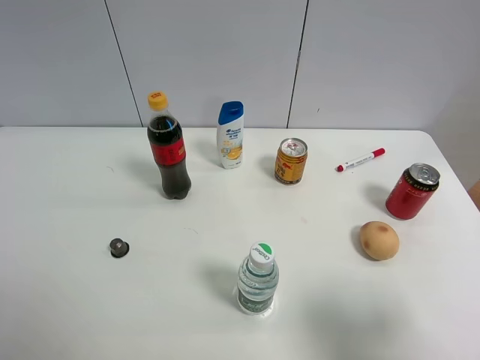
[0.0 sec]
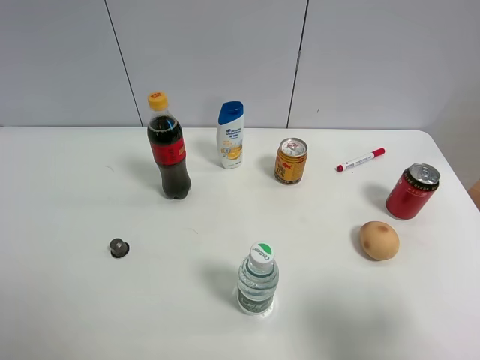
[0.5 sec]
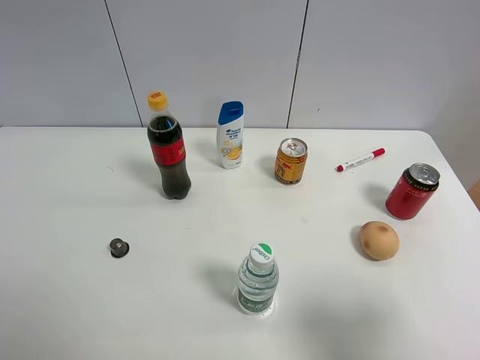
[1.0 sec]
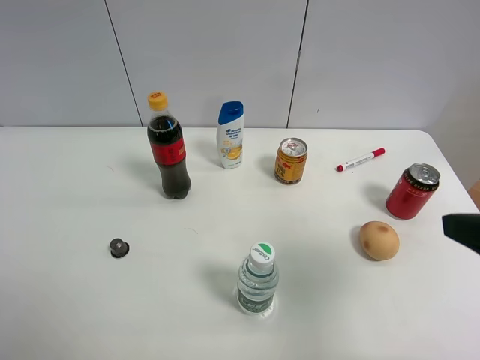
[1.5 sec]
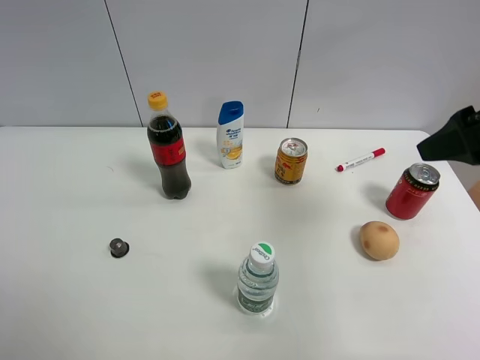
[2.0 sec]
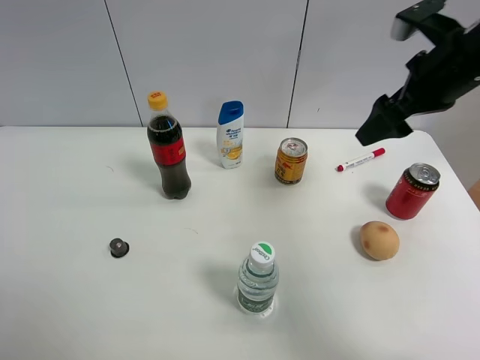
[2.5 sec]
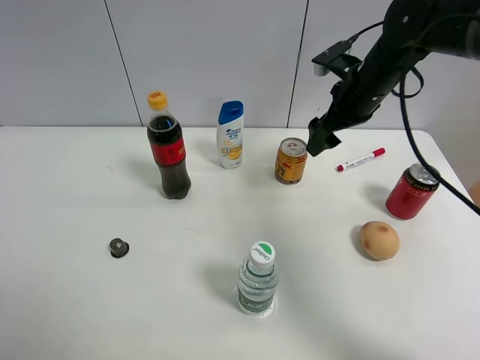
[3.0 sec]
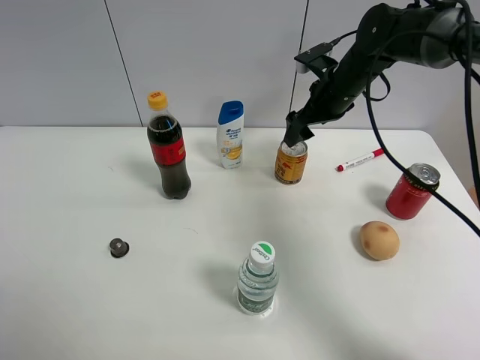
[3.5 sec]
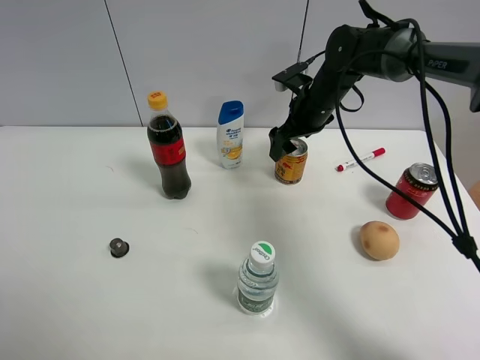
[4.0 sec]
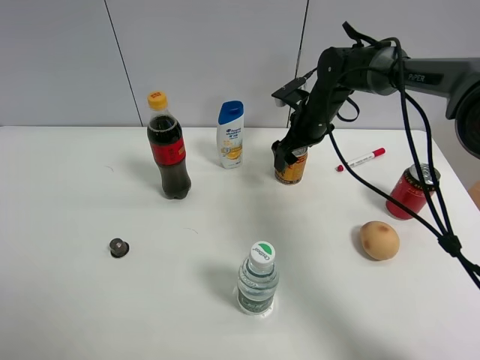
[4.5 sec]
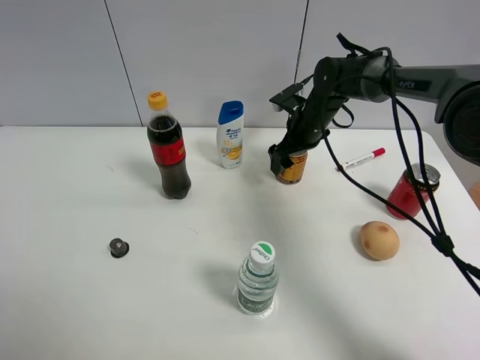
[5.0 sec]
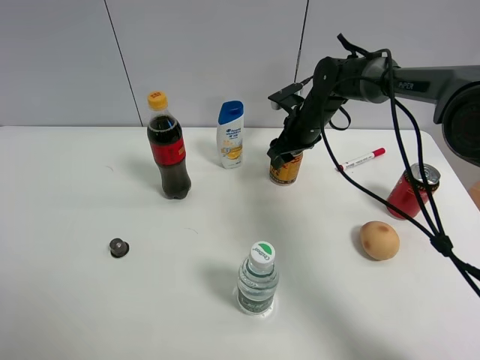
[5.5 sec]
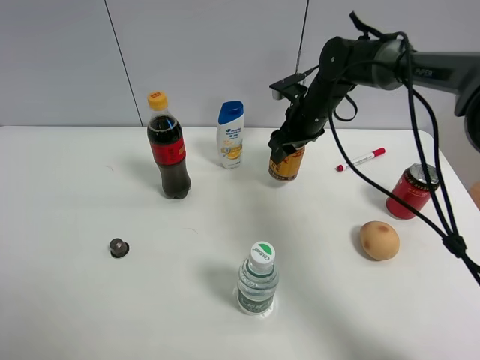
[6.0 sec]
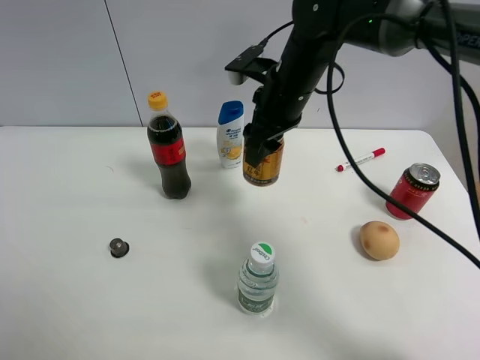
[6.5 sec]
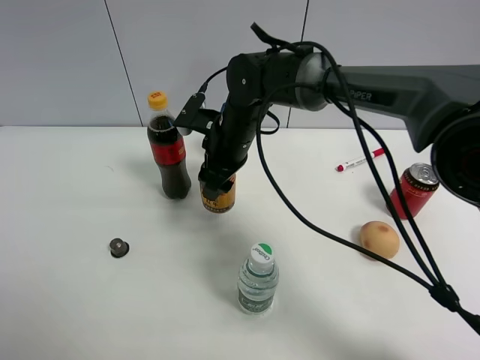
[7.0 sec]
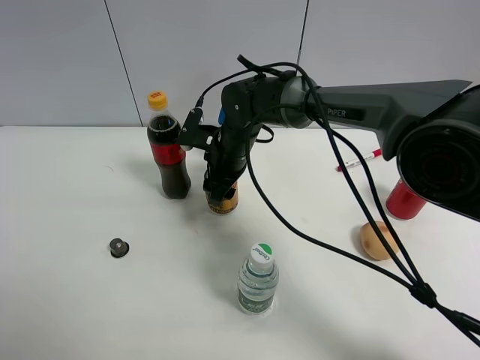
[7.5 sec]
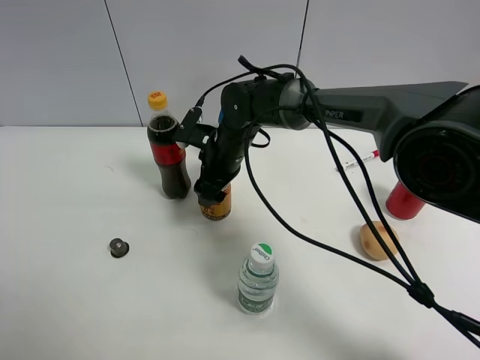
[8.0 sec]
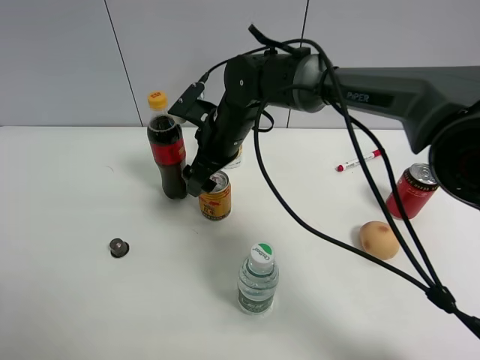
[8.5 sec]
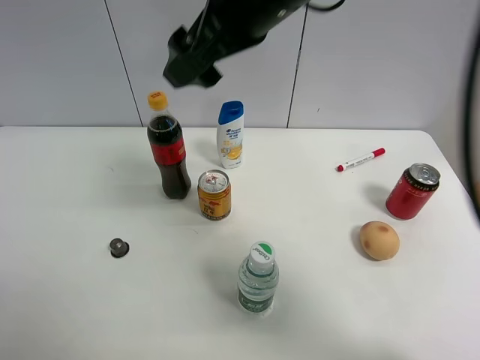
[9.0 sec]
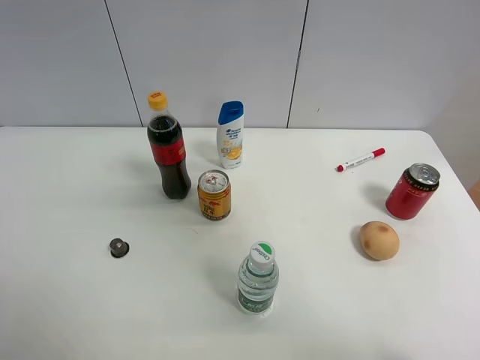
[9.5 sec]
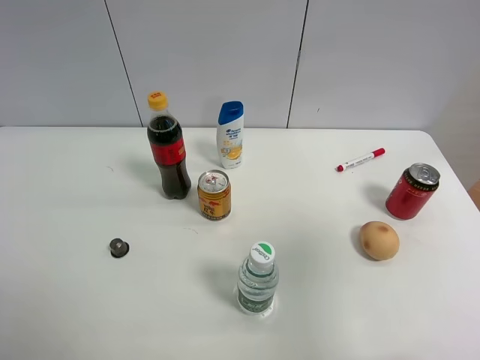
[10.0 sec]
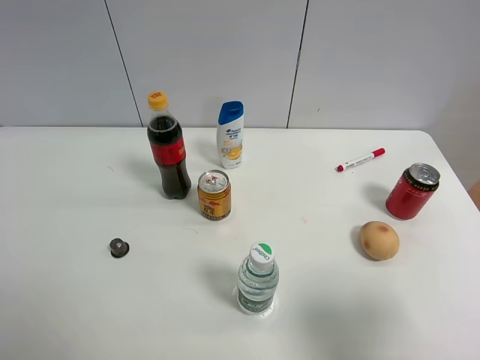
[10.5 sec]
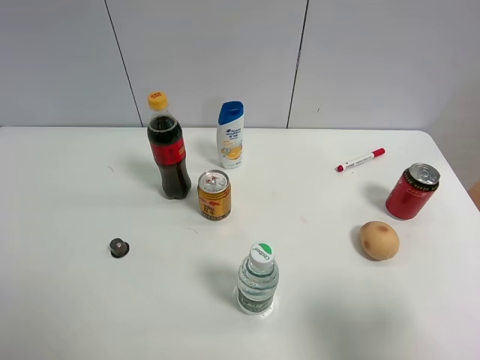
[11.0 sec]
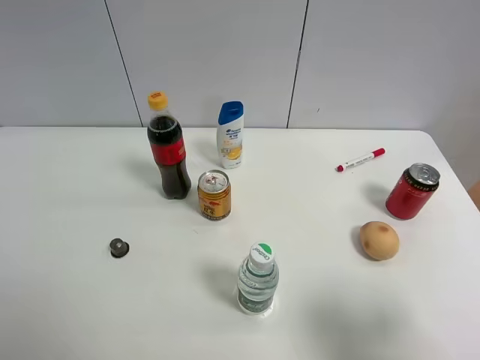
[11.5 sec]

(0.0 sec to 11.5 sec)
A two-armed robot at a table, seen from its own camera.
Task of the whole recording: the gripper move the object.
Step, 0.0 sec - 5.0 sec: Grasp the red bull with the right gripper.
Step, 5.5 sec - 8.0 sec: Place the red bull on the table with the right gripper.
0.0 sec - 2.0 sec: The right gripper heads forward, covering some 20 cm.
2.0 sec - 4.0 sec: The right gripper travels forward, downward and to the left by some 30 cm.
4.0 sec - 6.0 sec: The right gripper closes up.
6.0 sec - 7.5 sec: The right gripper goes about 15 cm to the left and backward.
7.5 sec - 9.5 sec: The right gripper goes about 50 cm upward, backward and to the right, and opens.
9.5 sec - 11.5 sec: The right gripper goes some 30 cm downward and backward.

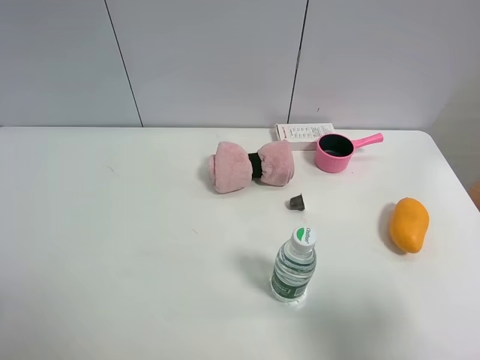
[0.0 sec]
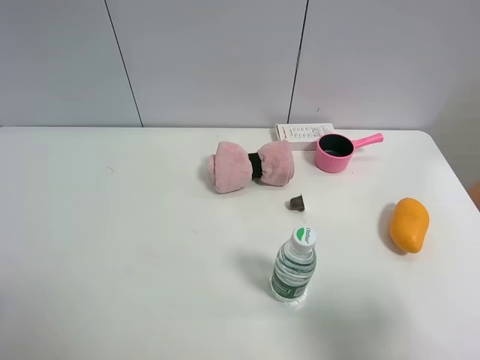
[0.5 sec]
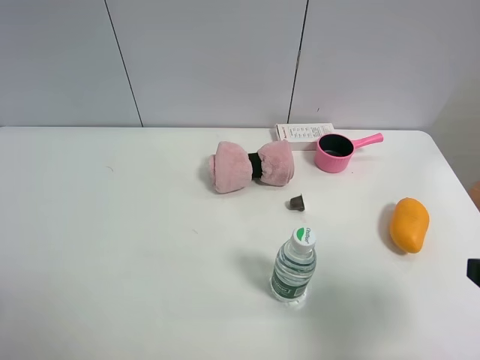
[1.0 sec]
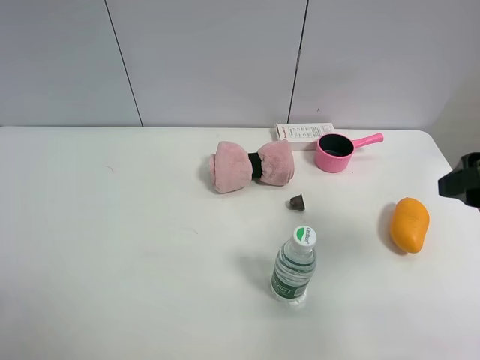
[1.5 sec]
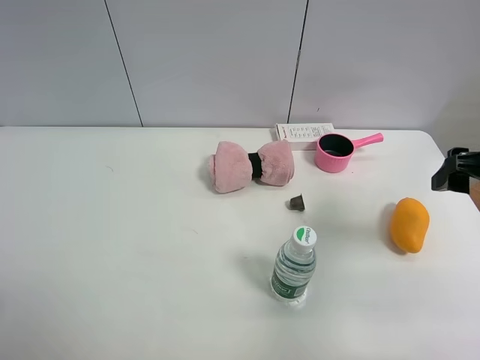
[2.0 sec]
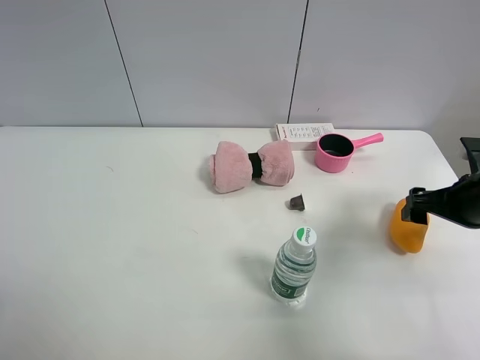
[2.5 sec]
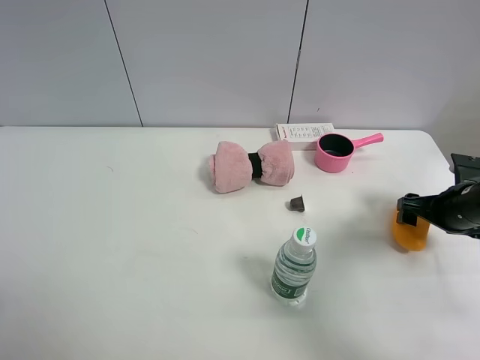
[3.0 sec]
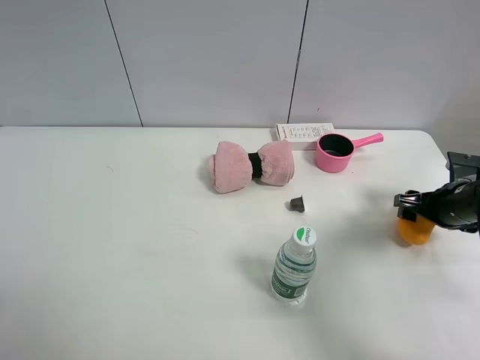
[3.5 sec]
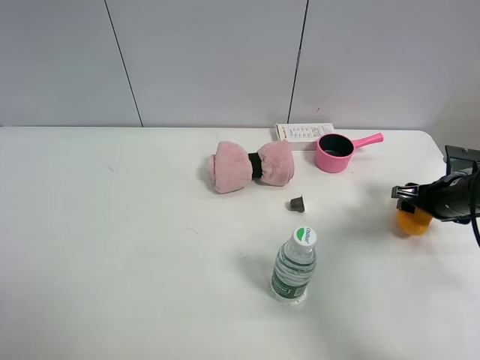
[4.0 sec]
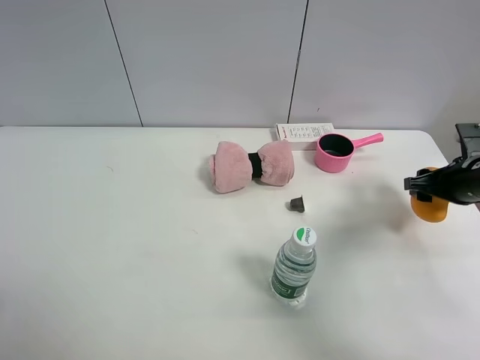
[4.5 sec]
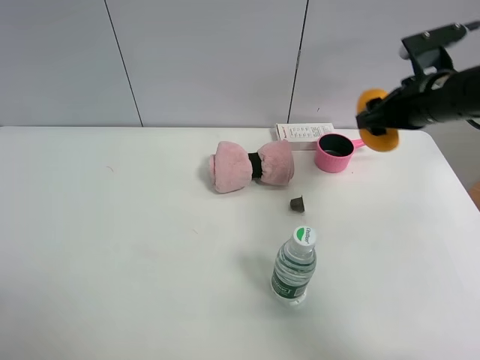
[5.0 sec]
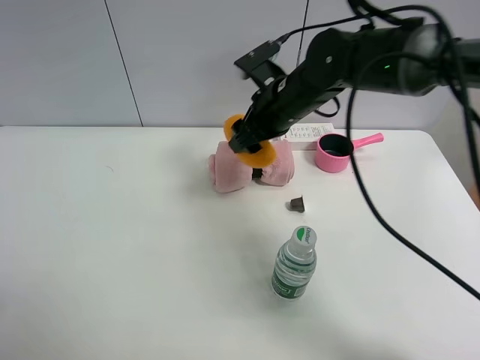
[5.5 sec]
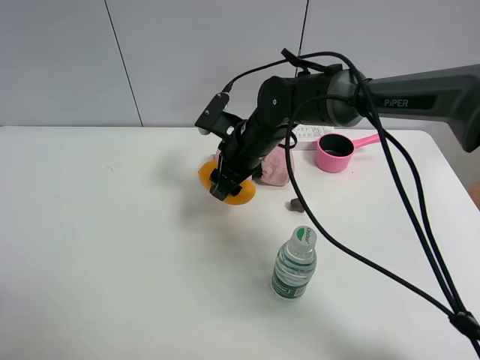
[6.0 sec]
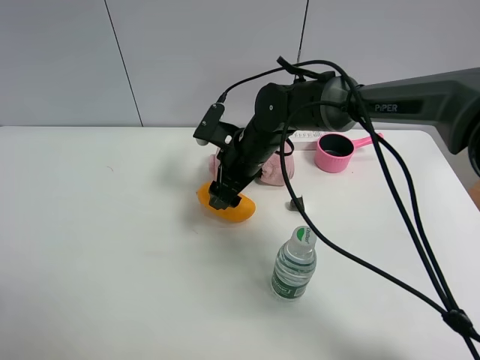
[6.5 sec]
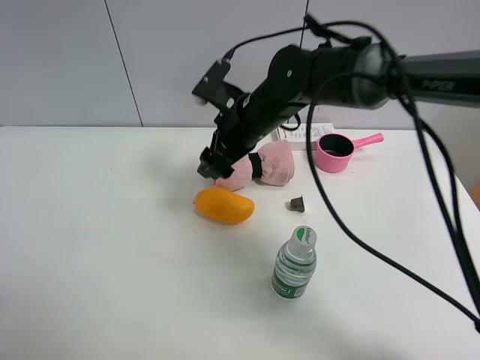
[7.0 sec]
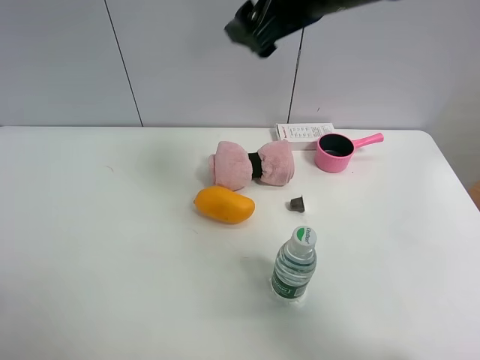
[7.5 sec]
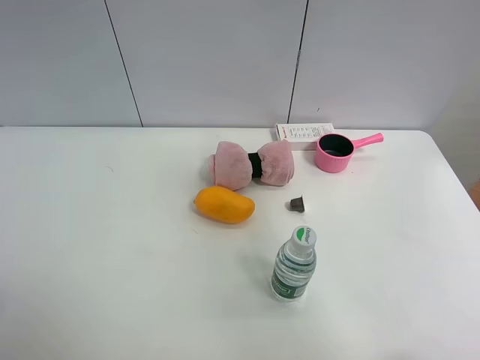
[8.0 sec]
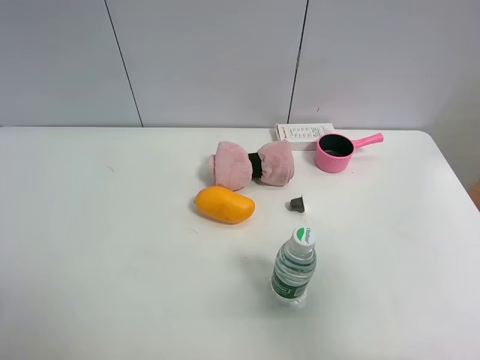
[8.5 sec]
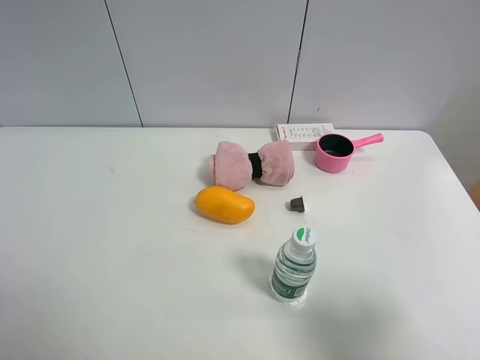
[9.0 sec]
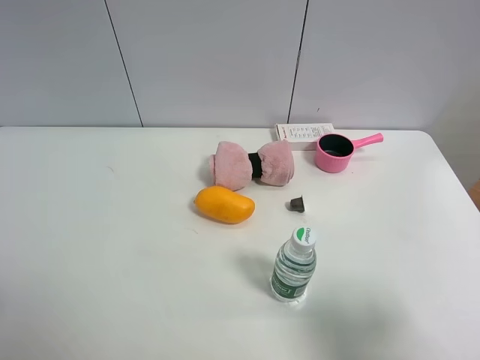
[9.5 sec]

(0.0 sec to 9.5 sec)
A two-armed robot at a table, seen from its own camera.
Task of the whole recording: the gripper move the object.
Step, 0.0 sec - 3.5 sec: Grasp the mango with the right gripper.
Step, 4.0 sec - 6.0 sec: Place the mango on the table with the right gripper.
0.0 sec - 2.0 sec: The right gripper travels forward by some 20 cm.
2.0 sec - 4.0 sec: The right gripper travels downward and forward by roughly 20 cm, and closes.
4.0 sec - 5.5 sec: The right gripper moves to the left, roughly 30 cm.
5.5 sec - 7.5 sec: The right gripper goes roughly 20 cm upward, and opens up.
7.5 sec - 9.5 sec: The right gripper heads backward, to the right and downward, covering some 40 cm.

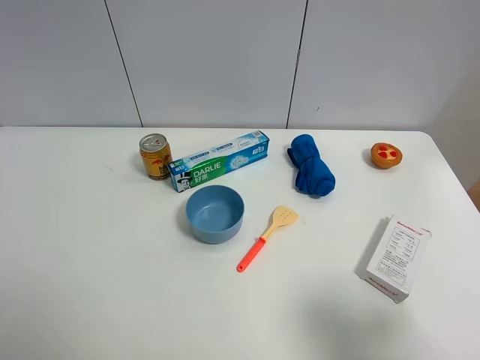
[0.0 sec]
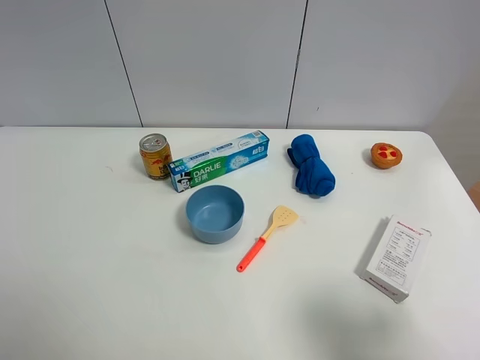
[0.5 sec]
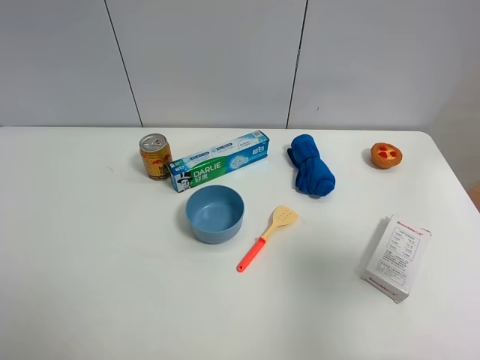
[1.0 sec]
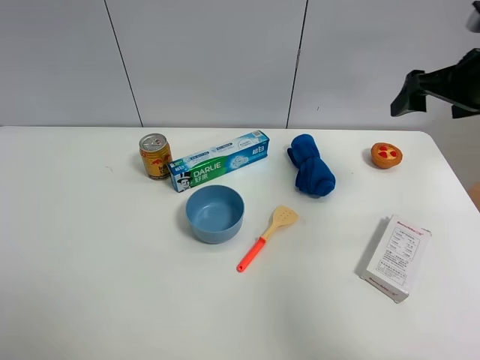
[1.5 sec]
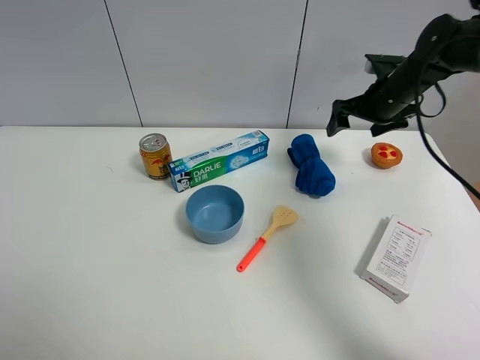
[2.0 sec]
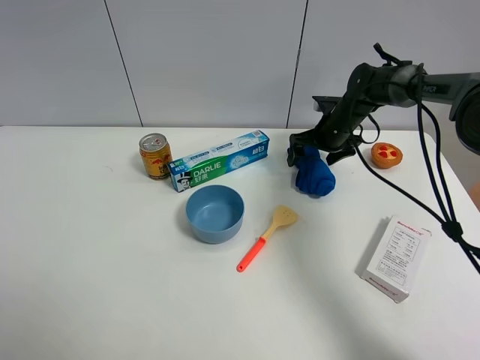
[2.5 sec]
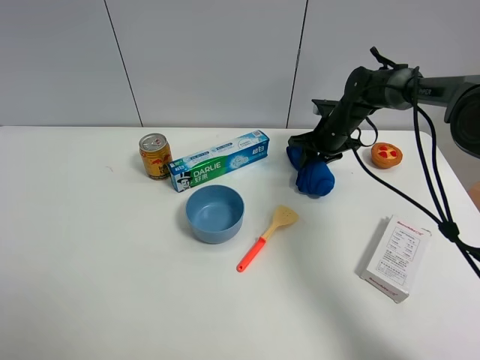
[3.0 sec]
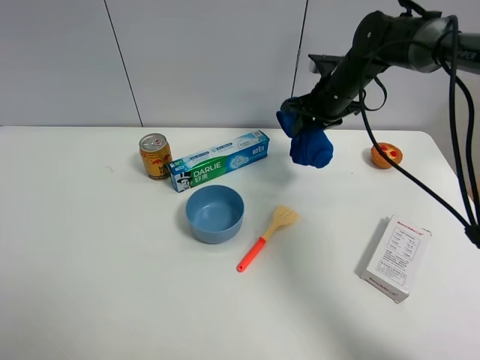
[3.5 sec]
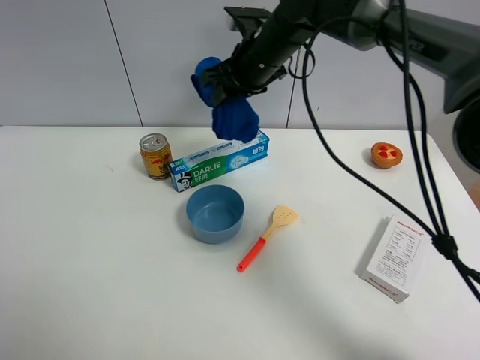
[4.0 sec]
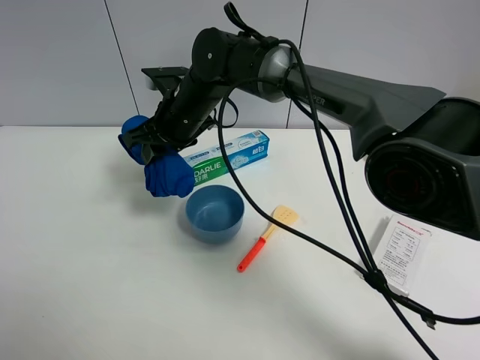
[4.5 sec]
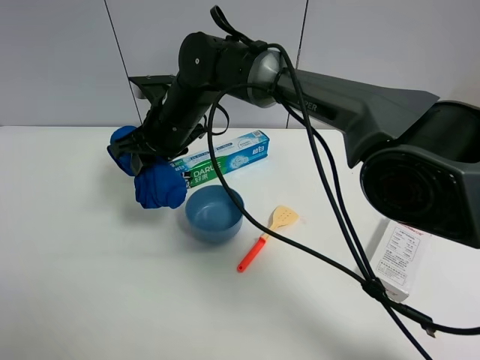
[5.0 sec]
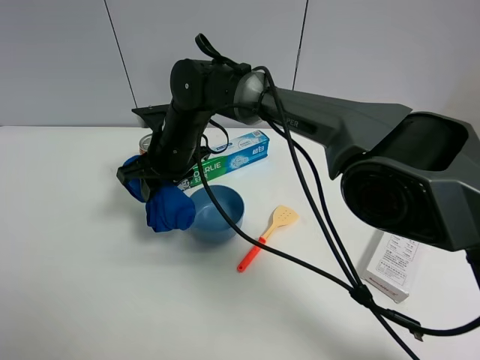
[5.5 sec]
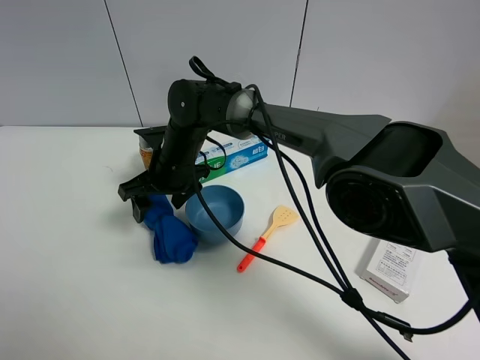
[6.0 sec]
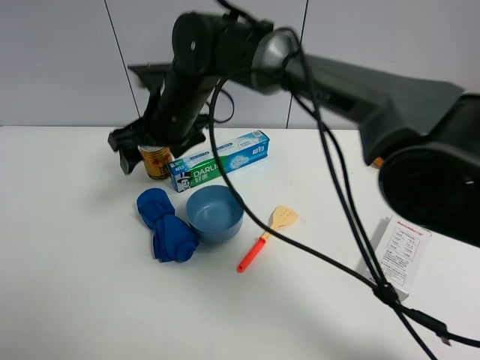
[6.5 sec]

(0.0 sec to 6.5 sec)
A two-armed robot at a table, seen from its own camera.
Task of the whole recording: the gripper move the object.
Step, 0.0 sec - 2.5 sec: Grasp the blue square with the right gripper.
Step, 3.0 sec - 6.0 sec: Place the blue square on the table with the right gripper.
0.0 sec - 2.0 sec: The right gripper is displaced forward by about 40 cm.
2.0 sec - 4.5 sec: The right gripper shifts approximately 35 cm to the left, and closes up.
4.5 sec - 6.5 sec: The right gripper opens up.
